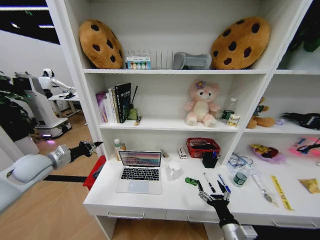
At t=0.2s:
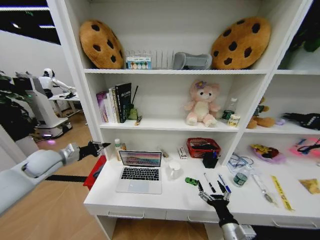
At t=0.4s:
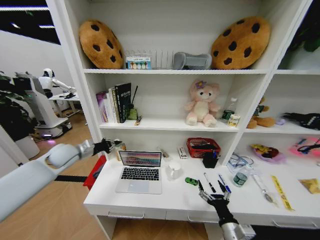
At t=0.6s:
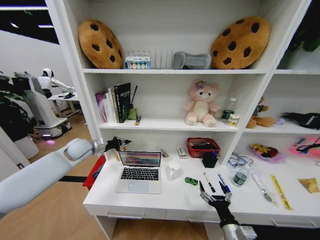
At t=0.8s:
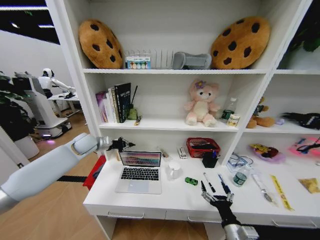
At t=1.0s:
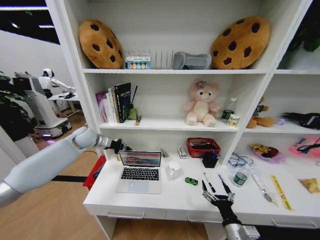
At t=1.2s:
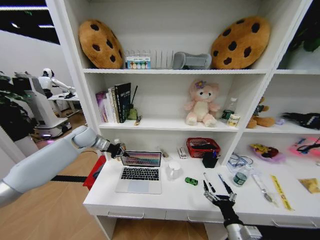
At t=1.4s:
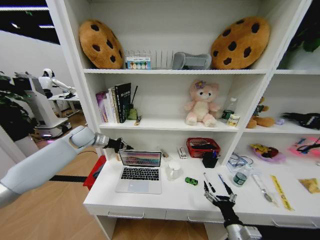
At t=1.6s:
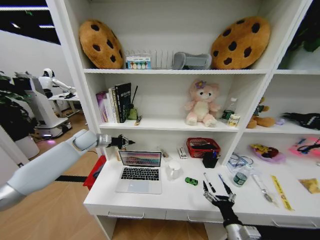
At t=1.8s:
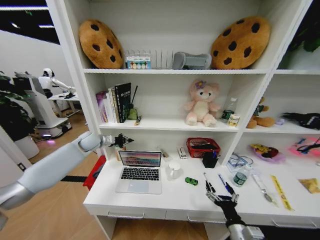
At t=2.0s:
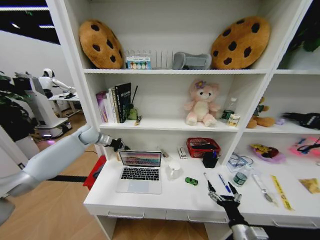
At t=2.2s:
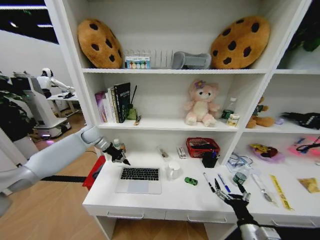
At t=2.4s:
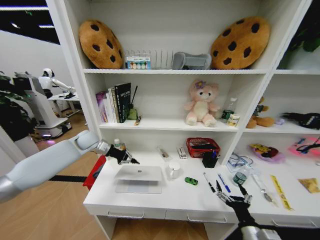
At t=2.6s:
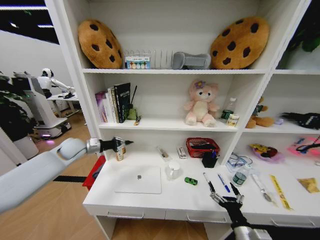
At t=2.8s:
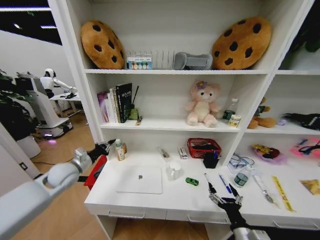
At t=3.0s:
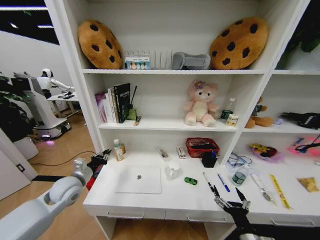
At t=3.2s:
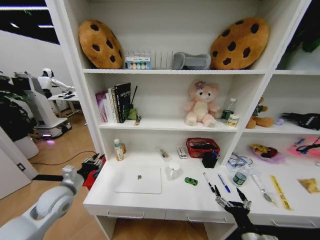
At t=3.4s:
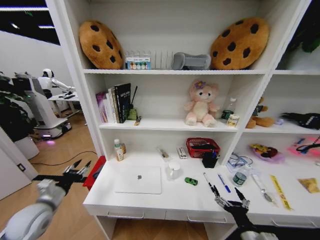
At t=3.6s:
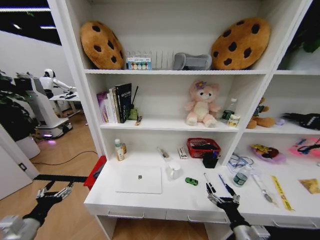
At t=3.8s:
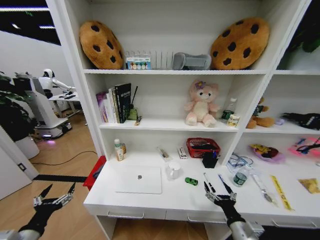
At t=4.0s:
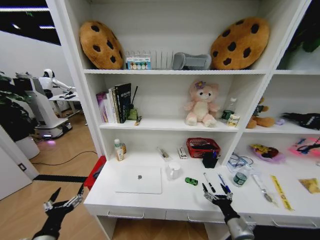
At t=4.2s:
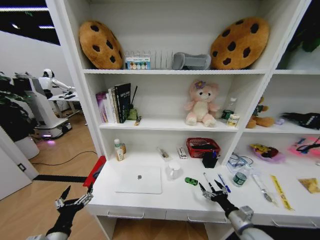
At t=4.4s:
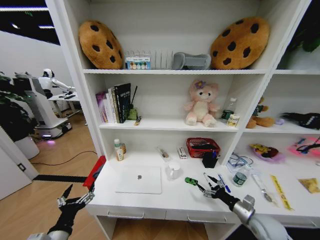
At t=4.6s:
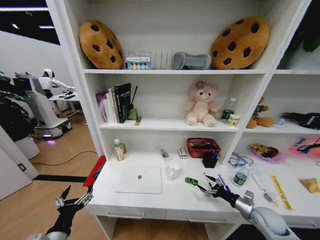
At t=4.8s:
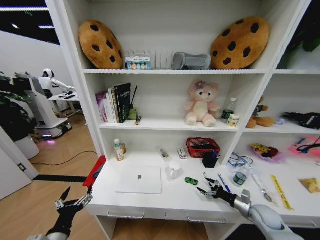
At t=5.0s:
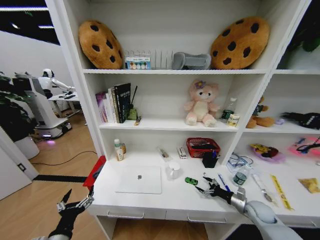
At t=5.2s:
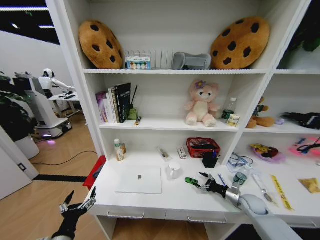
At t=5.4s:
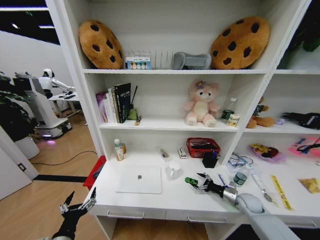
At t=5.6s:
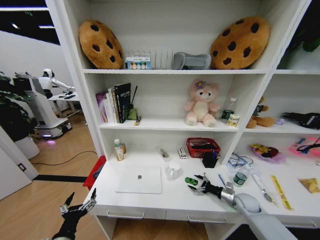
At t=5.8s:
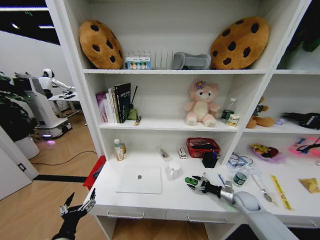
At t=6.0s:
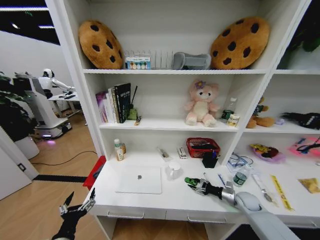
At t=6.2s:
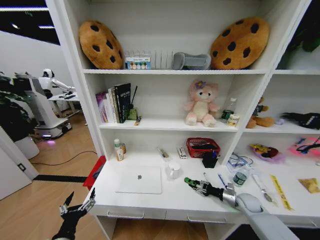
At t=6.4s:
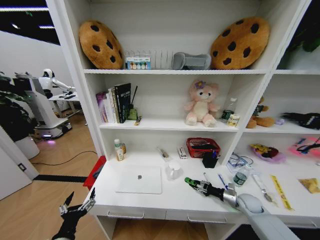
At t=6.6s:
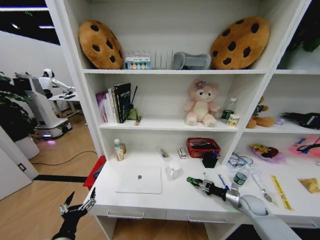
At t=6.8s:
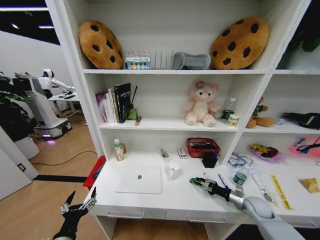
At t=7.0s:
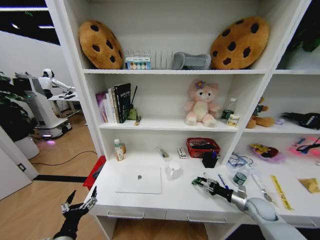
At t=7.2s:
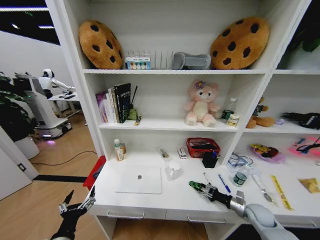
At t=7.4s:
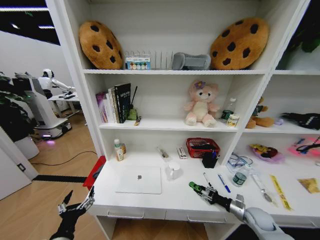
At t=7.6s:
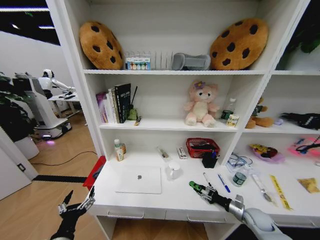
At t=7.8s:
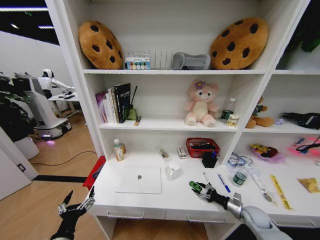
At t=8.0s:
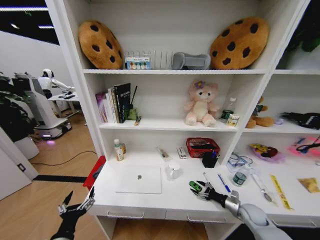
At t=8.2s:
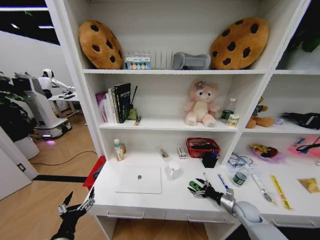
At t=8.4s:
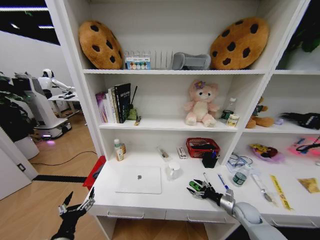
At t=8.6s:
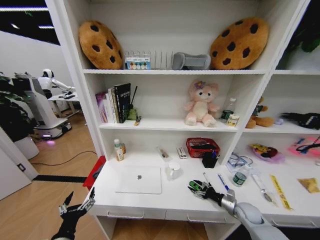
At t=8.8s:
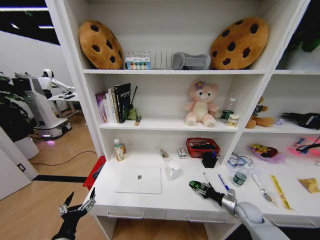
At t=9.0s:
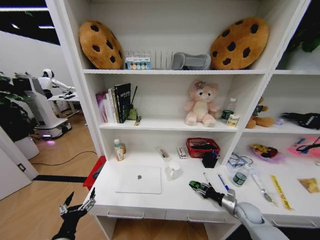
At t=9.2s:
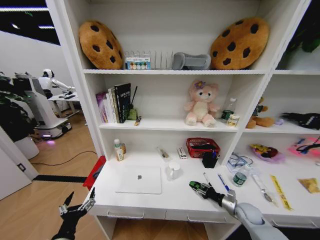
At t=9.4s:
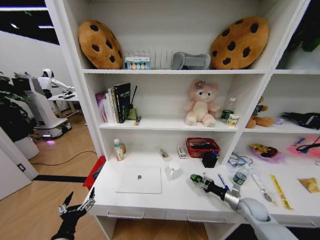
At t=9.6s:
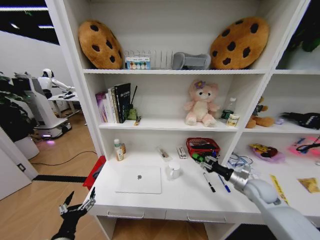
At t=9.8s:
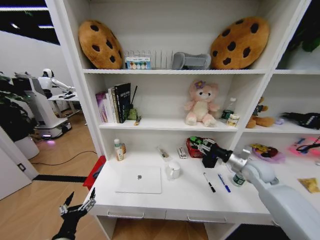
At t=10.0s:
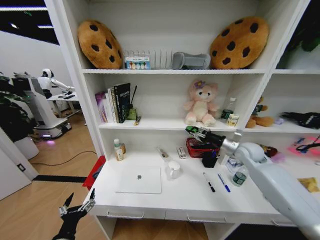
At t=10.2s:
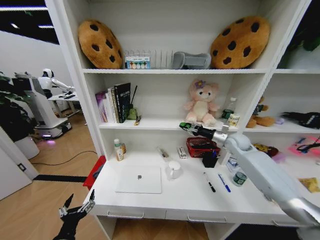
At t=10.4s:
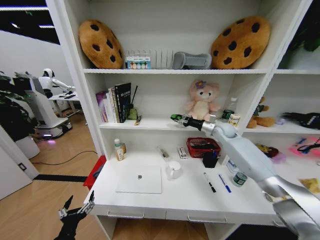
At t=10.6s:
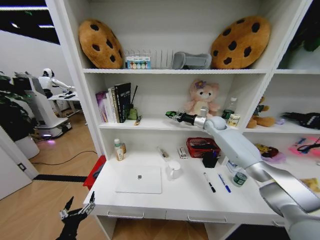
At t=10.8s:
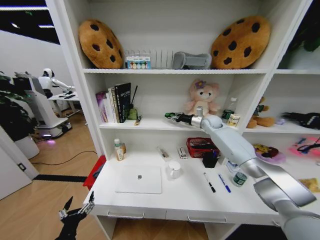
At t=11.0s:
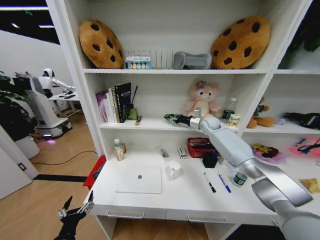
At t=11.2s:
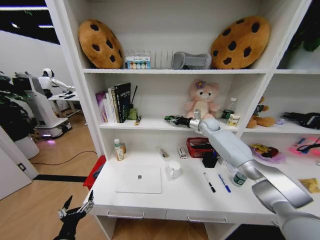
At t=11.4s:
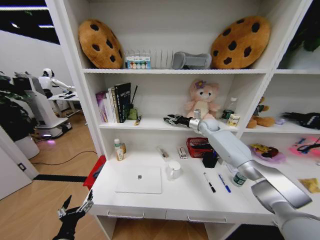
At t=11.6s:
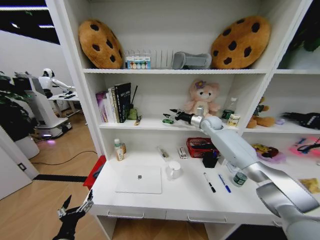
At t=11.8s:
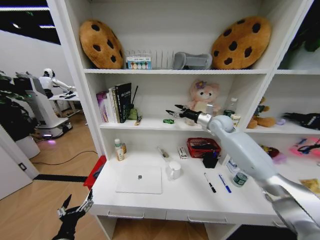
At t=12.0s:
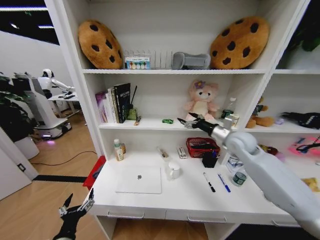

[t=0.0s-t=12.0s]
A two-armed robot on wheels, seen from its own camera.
Task of the whole recording: Organize the objects on the table.
t=0.0s to t=1.6s: The left gripper is displaced forward and to the right by roughly 20 cm.
t=1.6s to t=3.0s: The left gripper goes approximately 20 cm backward and downward.
t=3.0s to t=4.4s: The left gripper moves backward, some 20 cm, and opens up, while the right gripper is displaced forward and to the right by roughly 15 cm.
t=4.4s to t=6.0s: The right gripper shifts roughly 15 cm forward, downward and to the right.
t=6.0s to t=7.6s: The right gripper moves backward, roughly 5 cm.
t=7.6s to t=9.0s: The right gripper opens, then closes once more.
t=9.0s to t=10.4s: The right gripper travels upward and forward by some 40 cm.
t=10.4s to t=12.0s: The right gripper shifts roughly 15 cm backward, and opens its fingers.

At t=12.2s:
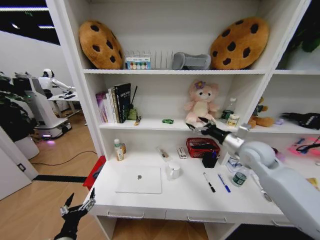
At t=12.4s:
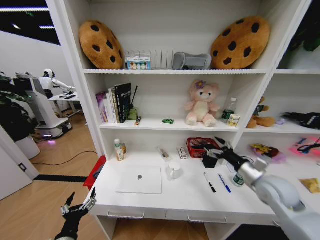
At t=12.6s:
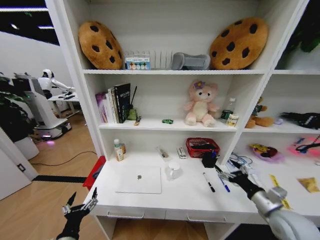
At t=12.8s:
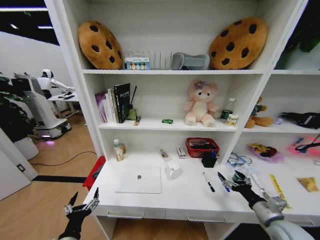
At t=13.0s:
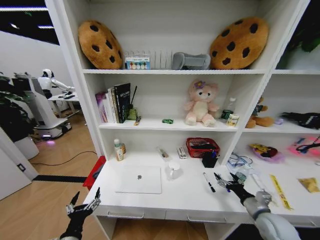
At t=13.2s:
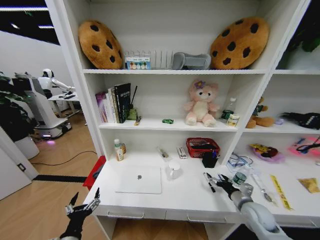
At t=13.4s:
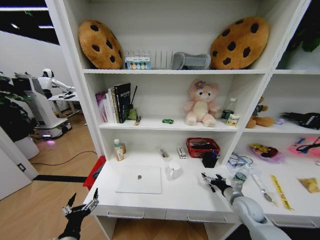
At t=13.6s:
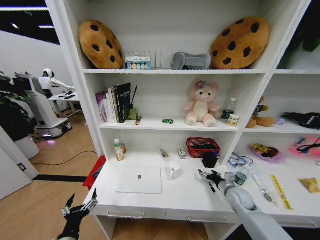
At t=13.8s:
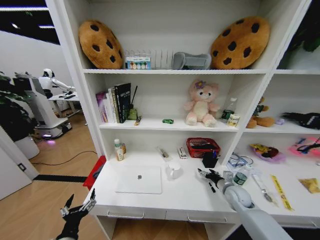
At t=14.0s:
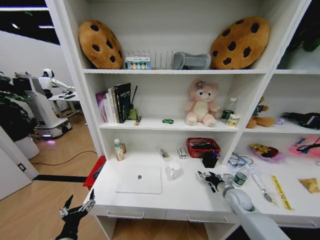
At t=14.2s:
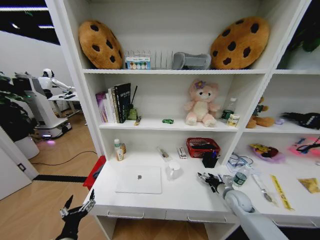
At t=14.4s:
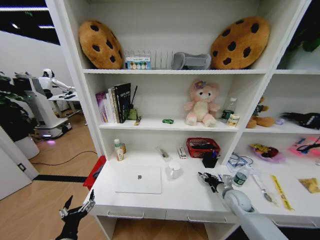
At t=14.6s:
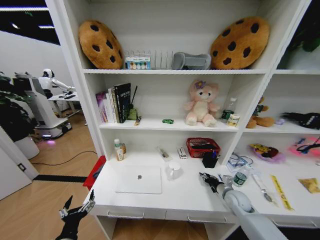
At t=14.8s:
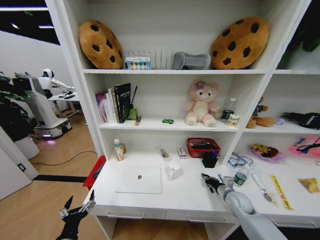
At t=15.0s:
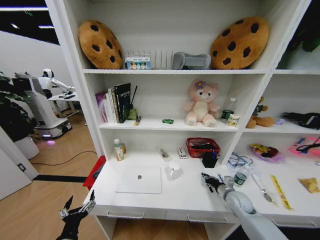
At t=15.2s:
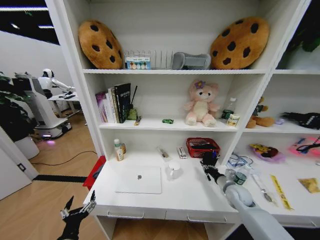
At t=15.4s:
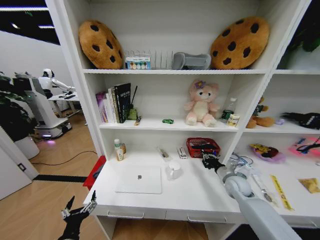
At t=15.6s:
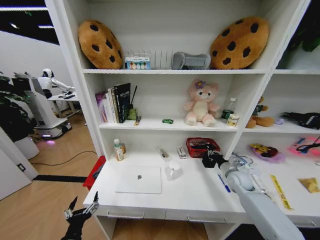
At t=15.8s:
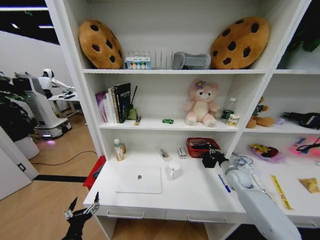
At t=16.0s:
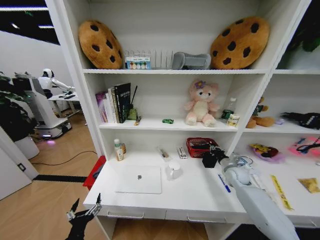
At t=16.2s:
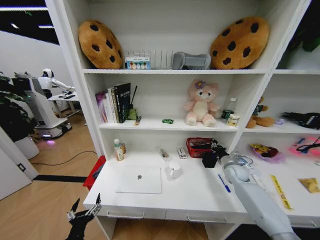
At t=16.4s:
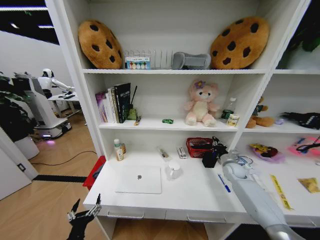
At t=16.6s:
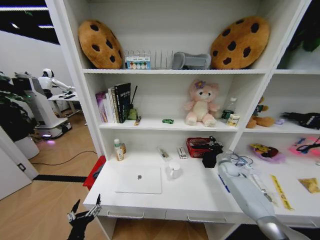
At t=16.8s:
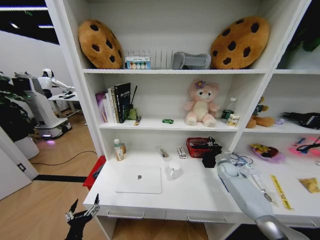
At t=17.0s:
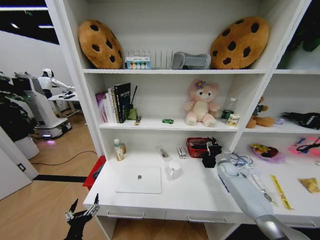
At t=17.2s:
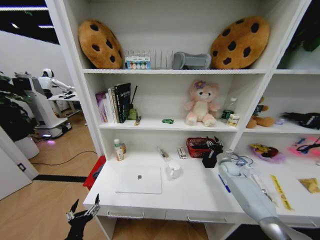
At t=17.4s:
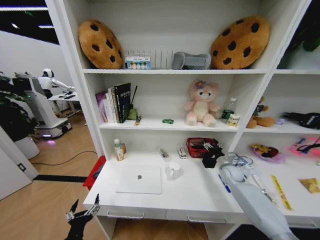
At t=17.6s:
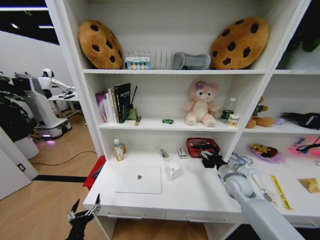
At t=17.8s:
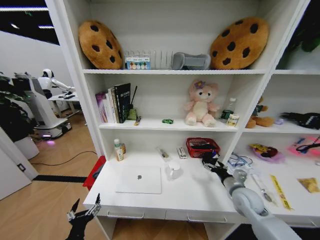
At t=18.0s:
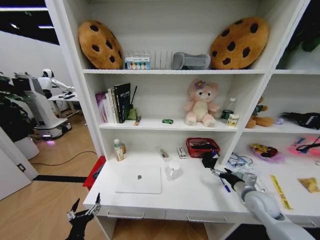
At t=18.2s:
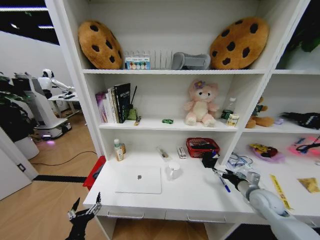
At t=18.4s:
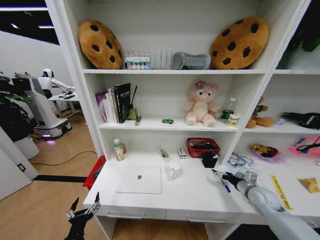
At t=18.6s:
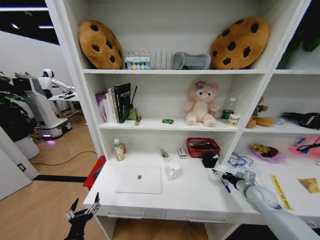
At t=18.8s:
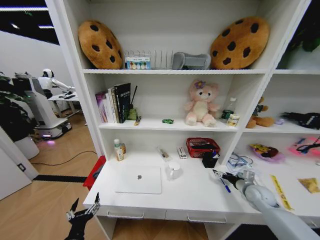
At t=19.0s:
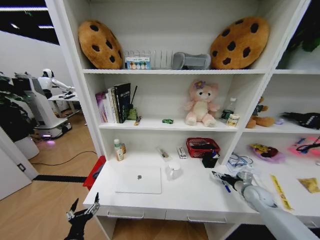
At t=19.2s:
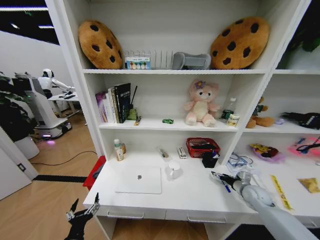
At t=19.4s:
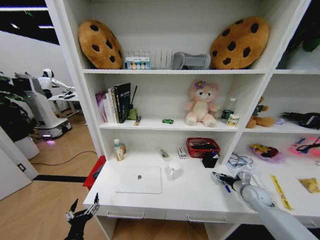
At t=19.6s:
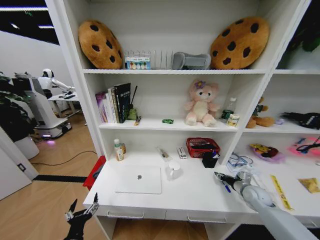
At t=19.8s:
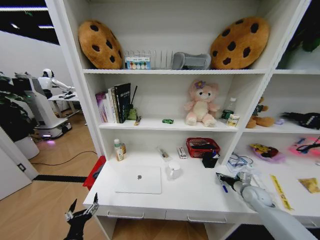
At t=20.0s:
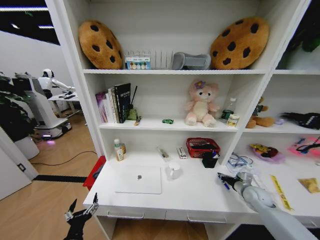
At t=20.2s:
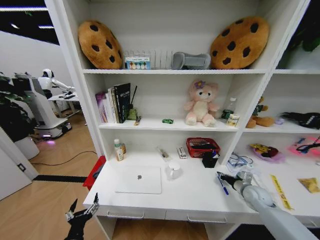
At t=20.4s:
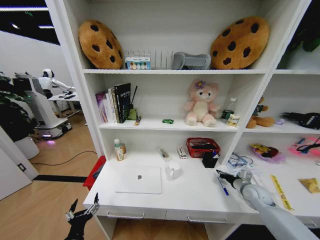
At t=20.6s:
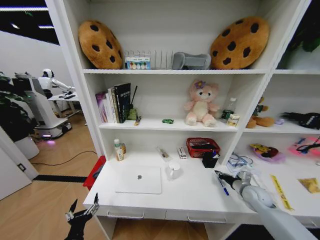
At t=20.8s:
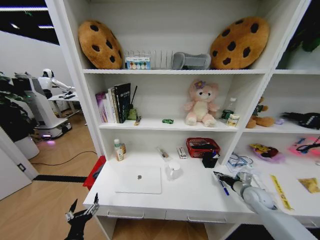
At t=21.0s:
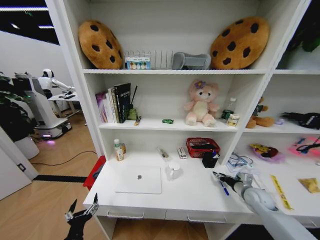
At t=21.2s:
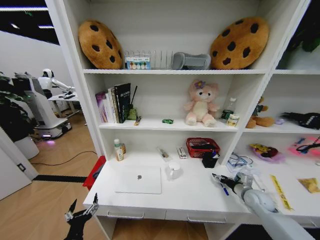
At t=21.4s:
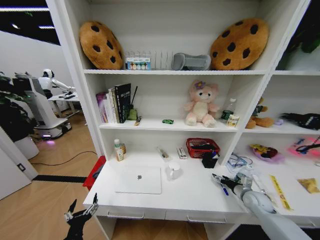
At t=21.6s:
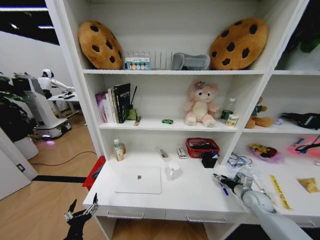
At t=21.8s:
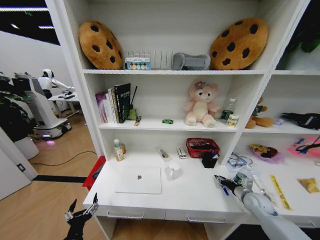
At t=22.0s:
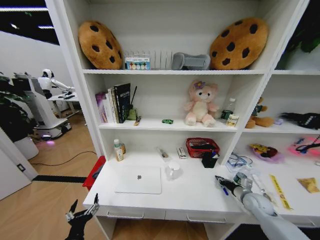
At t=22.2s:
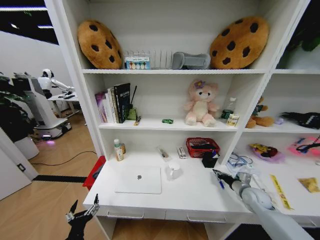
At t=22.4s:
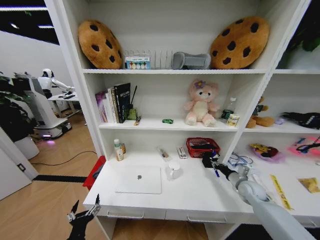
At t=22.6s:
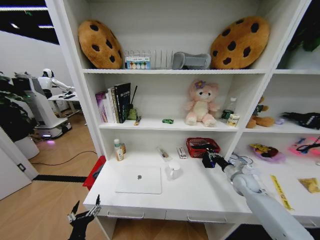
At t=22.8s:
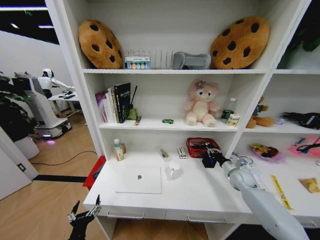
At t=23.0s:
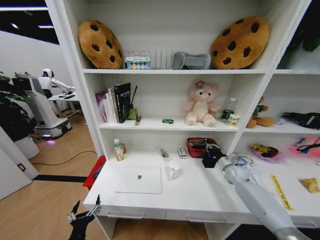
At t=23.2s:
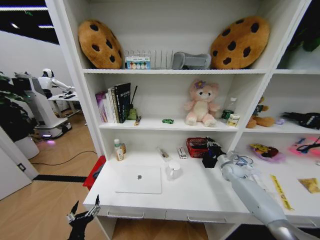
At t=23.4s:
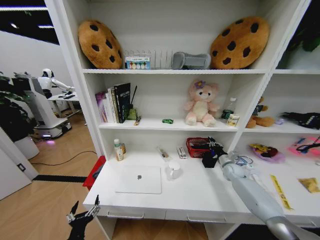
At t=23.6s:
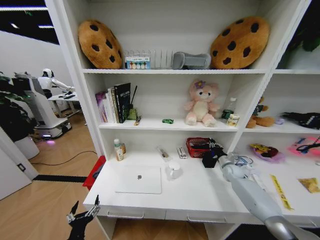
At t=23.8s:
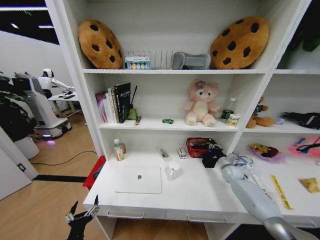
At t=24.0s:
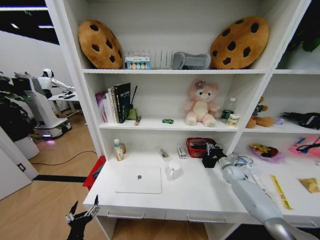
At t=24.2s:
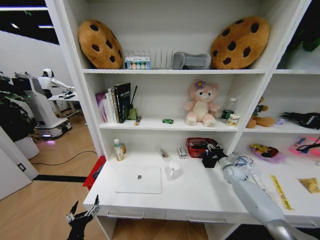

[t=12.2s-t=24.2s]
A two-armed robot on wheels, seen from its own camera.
Task of the whole recording: Organize the objects on the table.
t=12.2s to t=13.8s: The right gripper travels downward by approximately 25 cm.
t=13.8s to t=15.2s: The right gripper closes.
t=15.2s to t=16.6s: The right gripper heads forward, covering approximately 15 cm.
t=16.6s to t=18.2s: The right gripper shifts about 20 cm backward, and opens.
t=18.2s to t=19.8s: The right gripper shifts by approximately 5 cm, and closes.
t=19.8s to t=21.2s: The right gripper opens.
t=21.2s to t=22.6s: The right gripper travels forward by approximately 10 cm, and closes its fingers.
t=22.6s to t=24.2s: The right gripper travels forward by some 5 cm, and opens its fingers.
